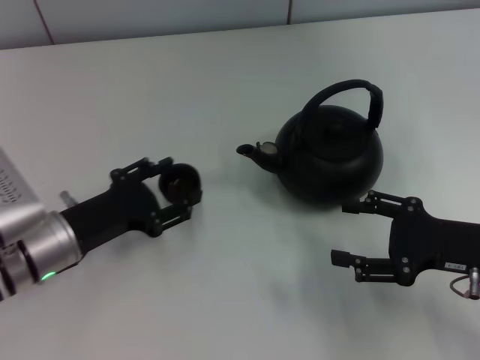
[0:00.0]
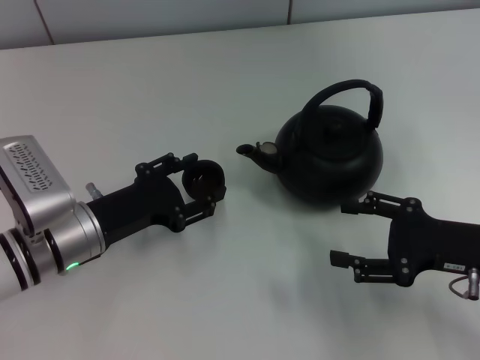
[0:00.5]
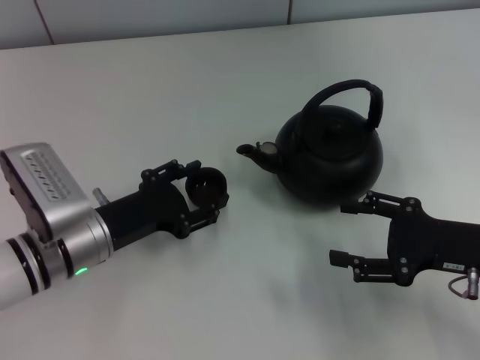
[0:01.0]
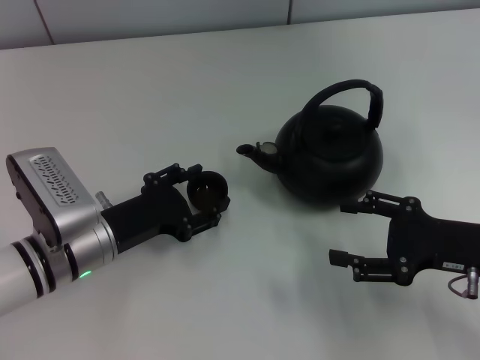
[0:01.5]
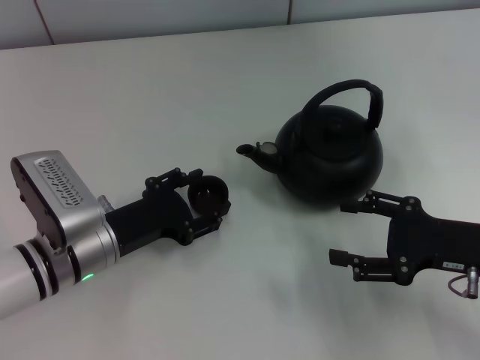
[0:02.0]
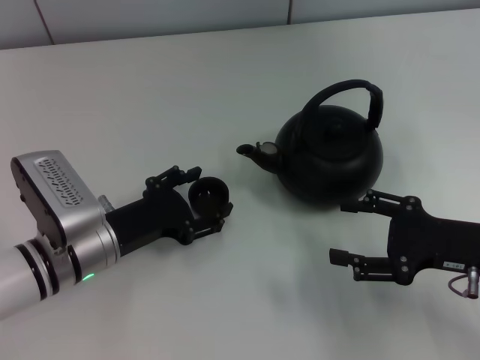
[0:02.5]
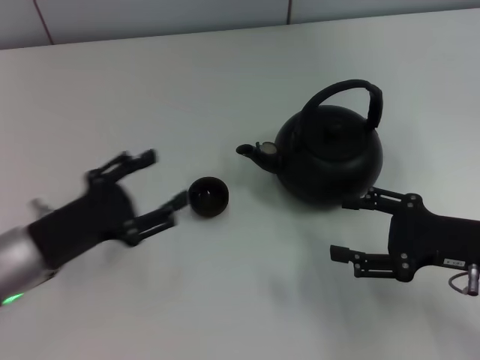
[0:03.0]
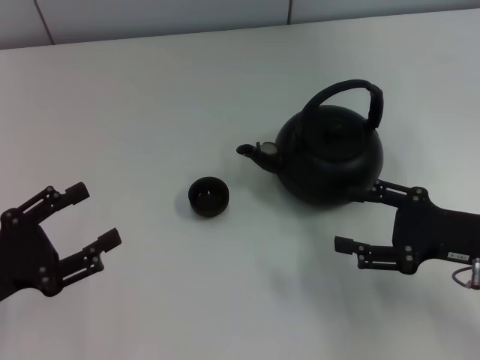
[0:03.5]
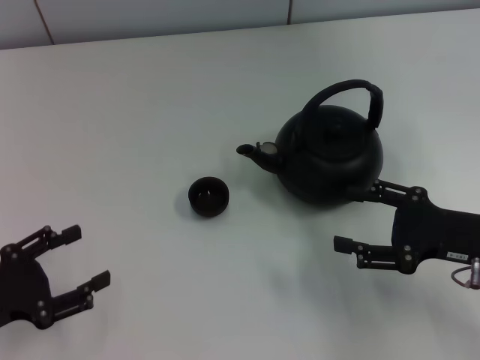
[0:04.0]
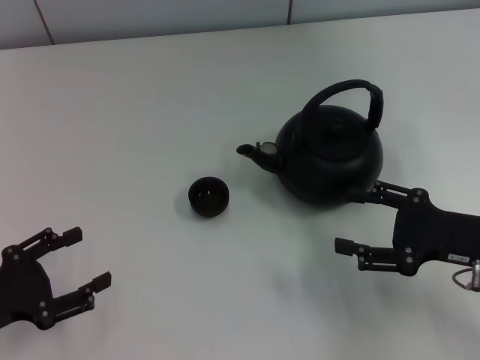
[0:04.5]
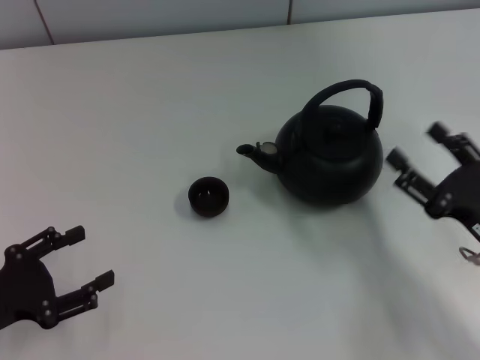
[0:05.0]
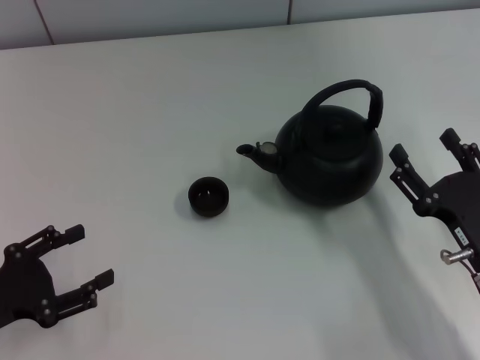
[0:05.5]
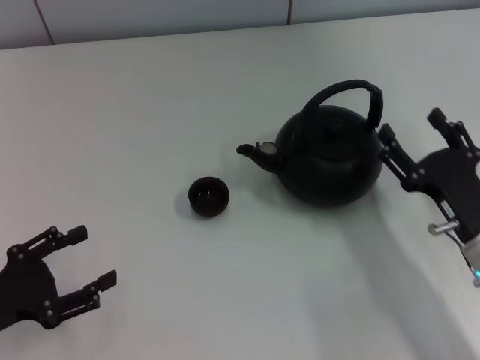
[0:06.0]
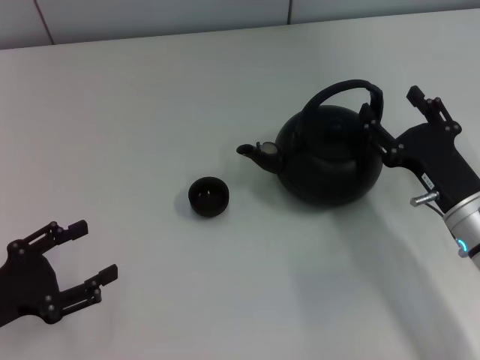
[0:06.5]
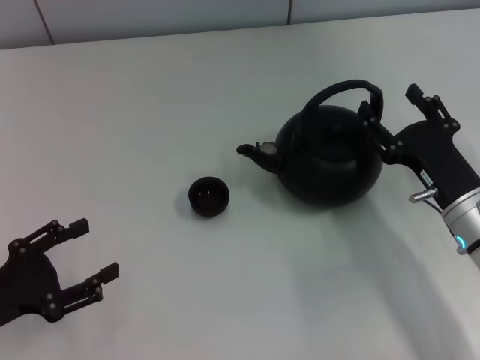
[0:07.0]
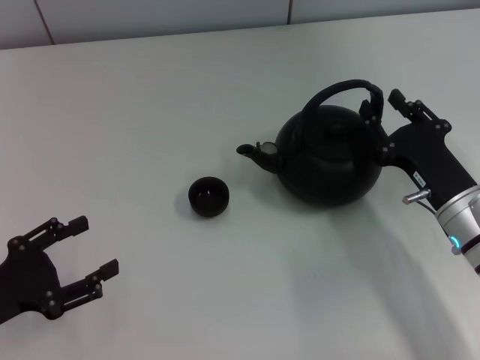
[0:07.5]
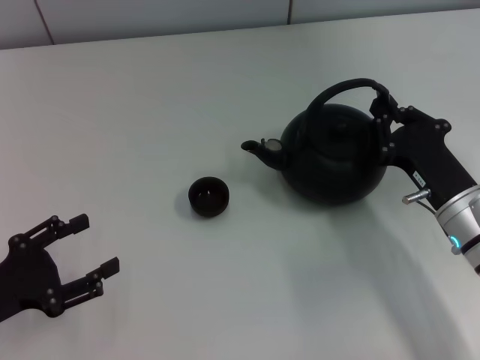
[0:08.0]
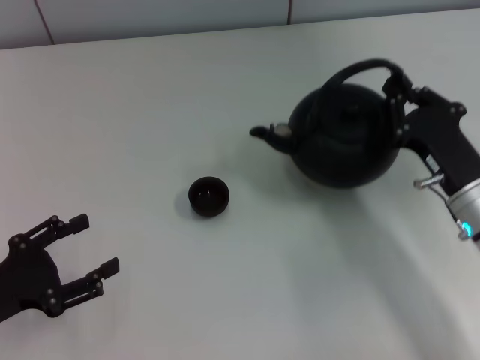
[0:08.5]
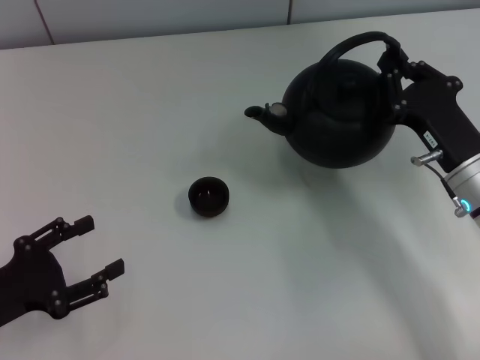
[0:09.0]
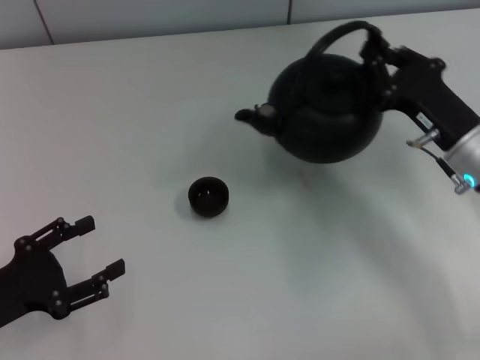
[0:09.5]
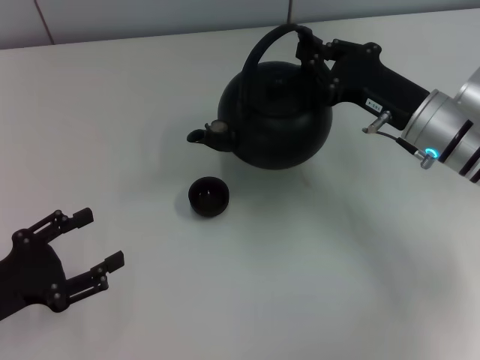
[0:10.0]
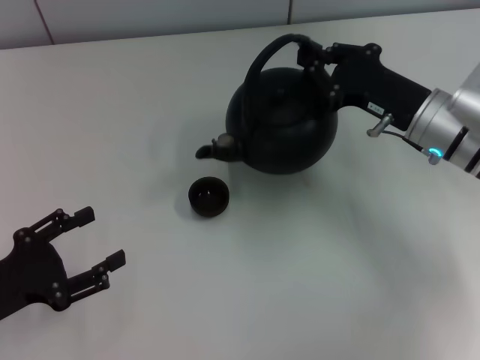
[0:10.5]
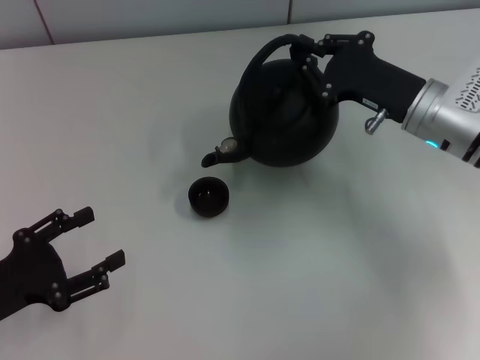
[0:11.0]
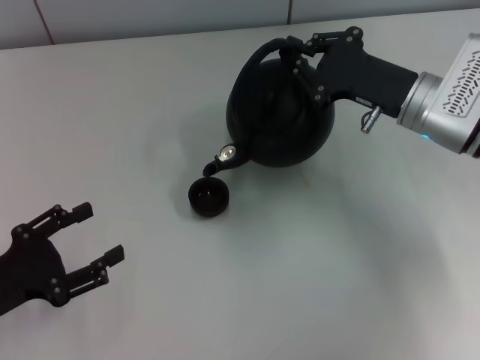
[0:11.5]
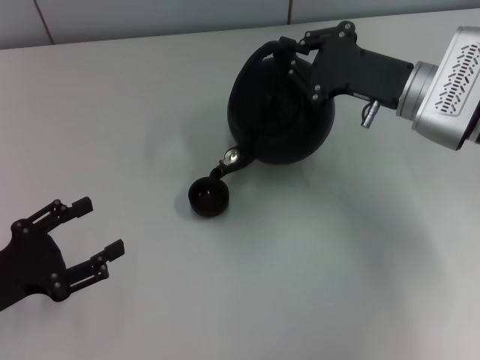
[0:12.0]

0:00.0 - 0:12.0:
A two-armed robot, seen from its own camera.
Task of the whole recording: Grasp the handle of the teapot with one hand and pour tea into the teacup.
Step, 0:00.5 - 0:03.0: Place the teacup in the center of view with the left gripper.
Step, 0:03.5 - 0:08.5: Pick up the teapot with the right gripper.
0:00.0 - 0:02.0: The grippers make only small movements.
0:02.0 - 0:04.0: The left gripper moves to the left and backward, about 15 cm.
0:04.0 - 0:06.0: The right gripper moves approximately 5 cm.
0:06.0 - 0:08.0: The right gripper closes its fingers.
0:08.0 - 0:10.0: The right gripper is displaced forward and upward by some 10 cm.

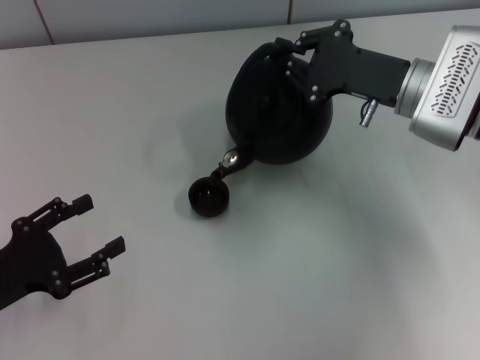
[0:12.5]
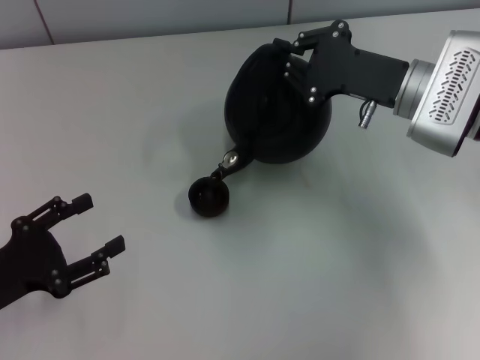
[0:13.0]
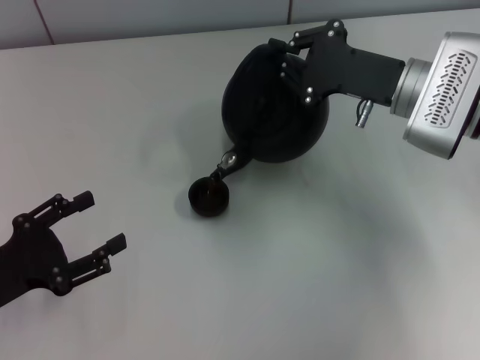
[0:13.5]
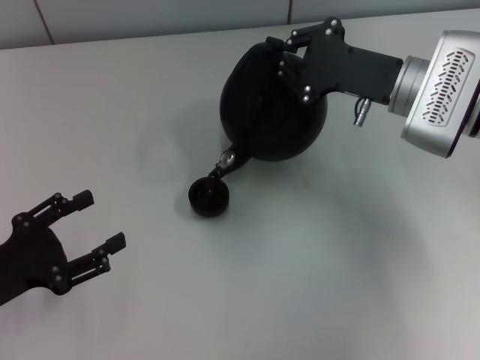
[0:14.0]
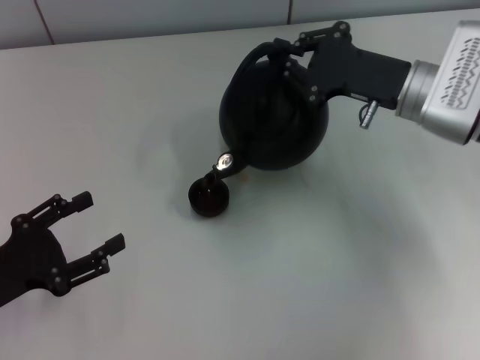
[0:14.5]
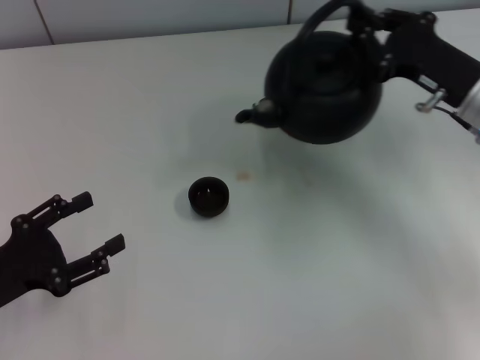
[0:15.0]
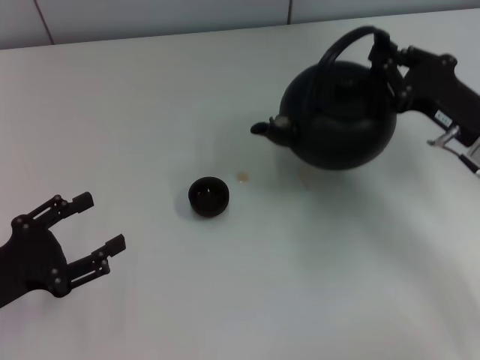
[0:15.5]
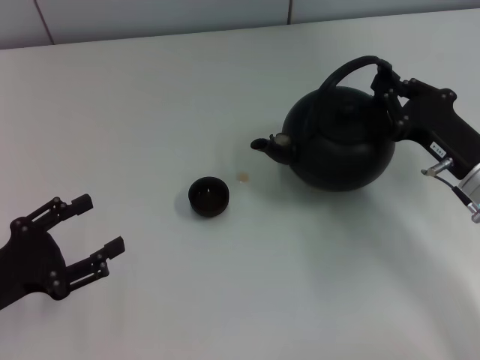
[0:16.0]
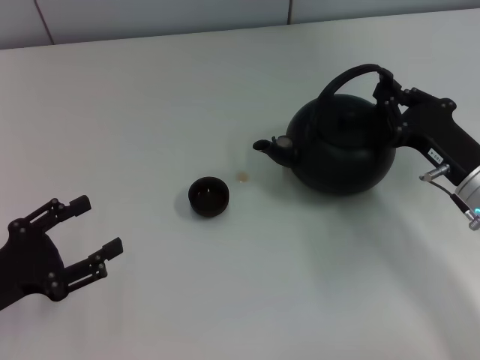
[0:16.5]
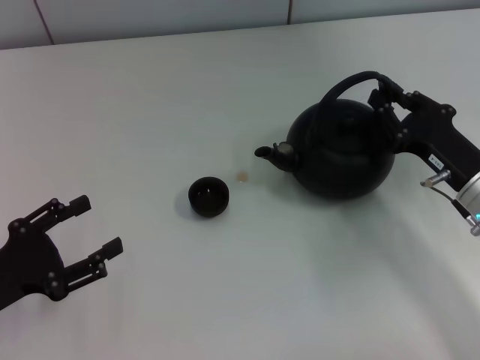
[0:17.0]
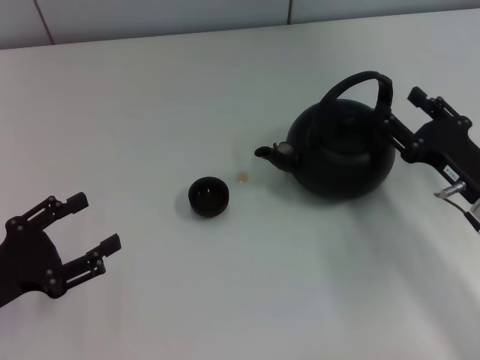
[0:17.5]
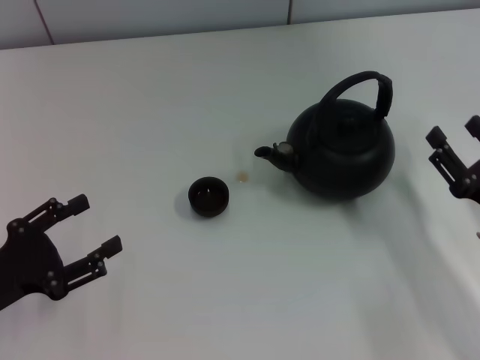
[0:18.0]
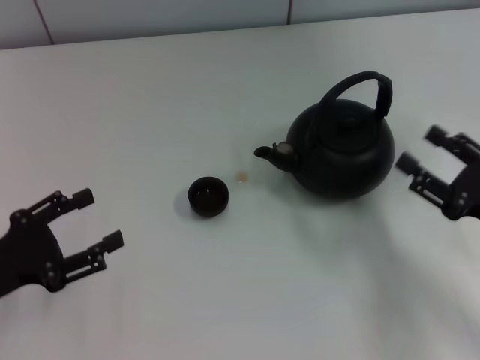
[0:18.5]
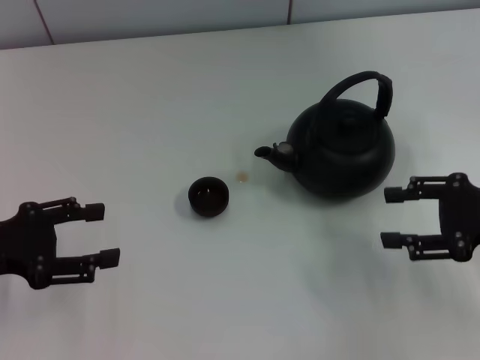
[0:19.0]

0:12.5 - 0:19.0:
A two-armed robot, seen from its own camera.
Task of the whole recording: Grasp the handle of the teapot with one hand and pour tea into the teacup.
Step, 0:15.5 - 0:17.5: Put down the teapot with the right gripper.
0:12.5 - 0:14.5: There are only small adjustments of the grippers.
0:14.5 - 0:17.0: The right gripper is displaced backward and downward by roughly 10 cm.
0:17.0 - 0:19.0: The left gripper moves forward and upward, approximately 10 cm; the right gripper is displaced upward and to the right by roughly 10 cm, and opens up.
